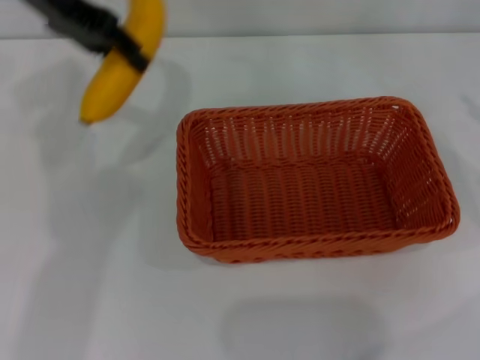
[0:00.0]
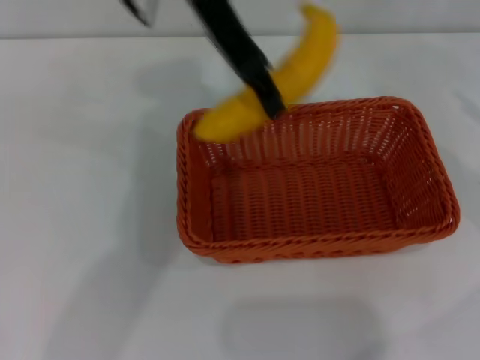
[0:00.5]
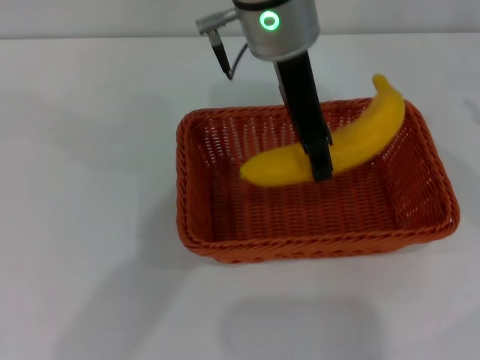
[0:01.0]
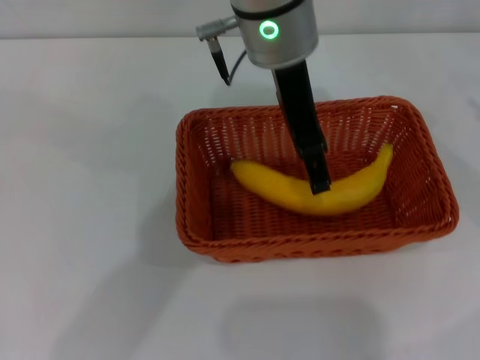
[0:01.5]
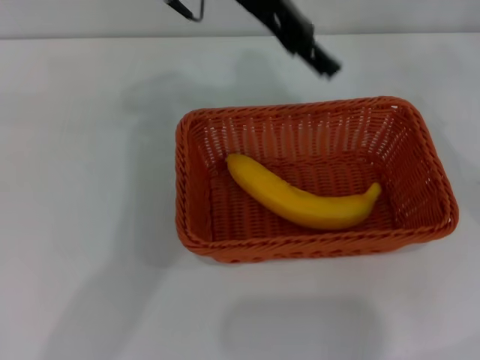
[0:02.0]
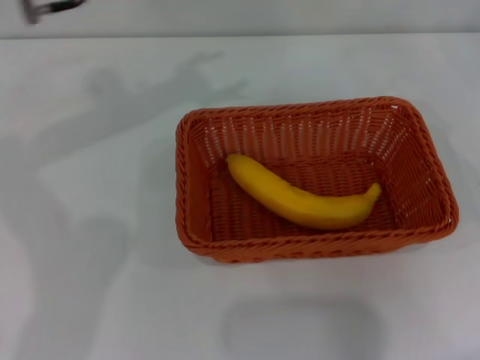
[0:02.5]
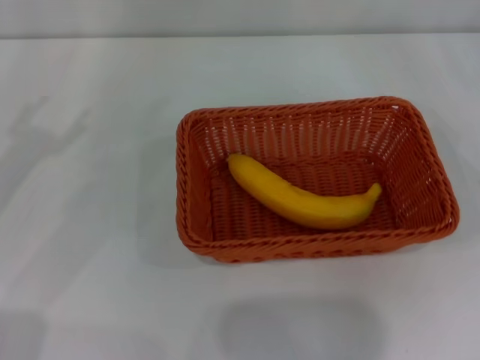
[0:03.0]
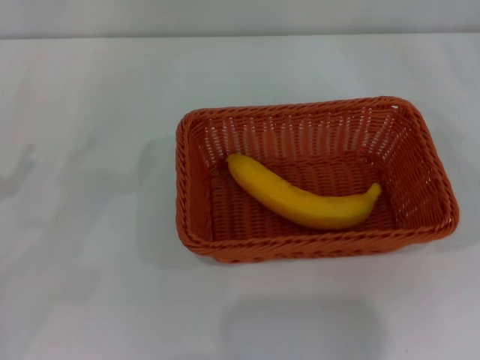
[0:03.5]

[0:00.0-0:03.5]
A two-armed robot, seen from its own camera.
Step, 0:00.0 to 0:01.5: Place the banana into the light basket with the left gripper.
0:00.0 to 0:02.0: The left gripper is displaced to the right by about 15 cm, and opens its fingers.
0:02.0 to 0:03.5: The right gripper shifts by approximately 5 cm. The left gripper is displaced to the left, backward and downward by approximately 40 cm.
